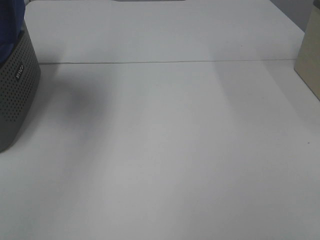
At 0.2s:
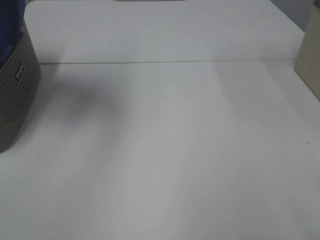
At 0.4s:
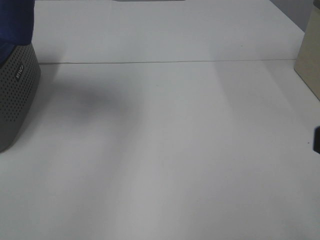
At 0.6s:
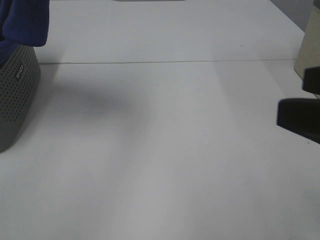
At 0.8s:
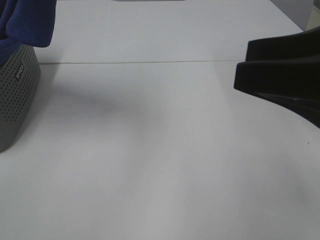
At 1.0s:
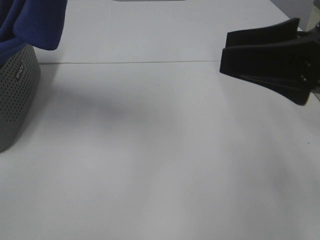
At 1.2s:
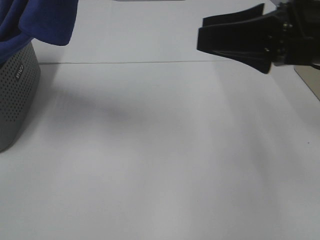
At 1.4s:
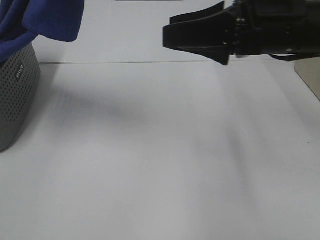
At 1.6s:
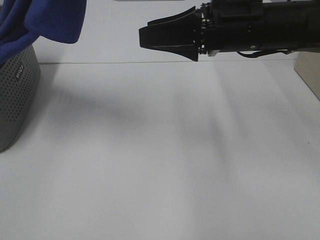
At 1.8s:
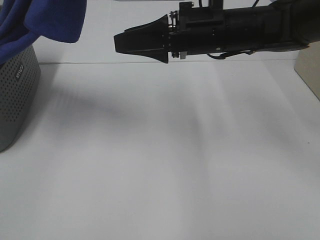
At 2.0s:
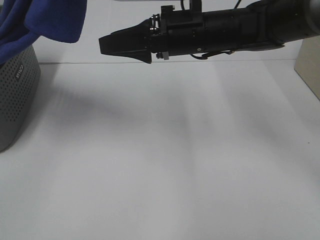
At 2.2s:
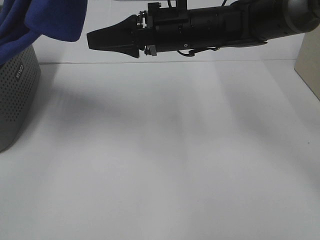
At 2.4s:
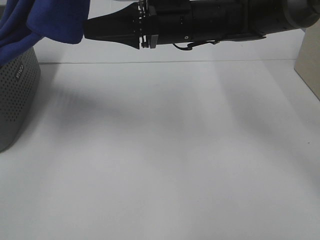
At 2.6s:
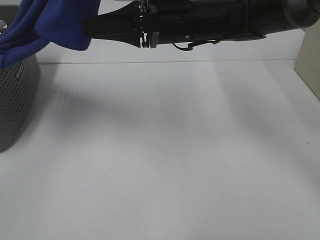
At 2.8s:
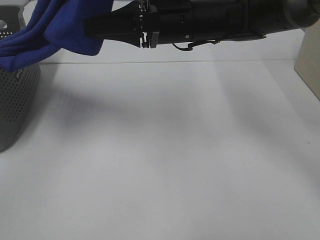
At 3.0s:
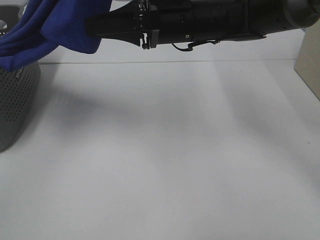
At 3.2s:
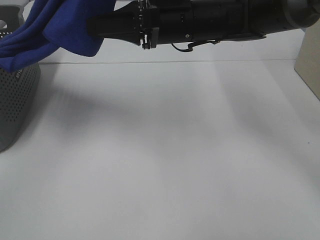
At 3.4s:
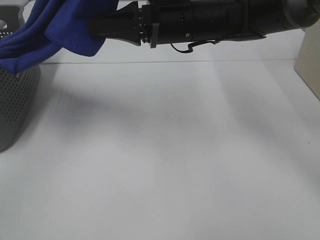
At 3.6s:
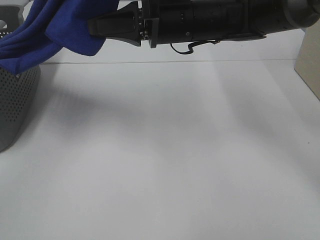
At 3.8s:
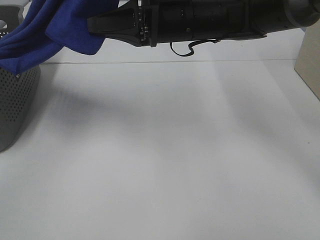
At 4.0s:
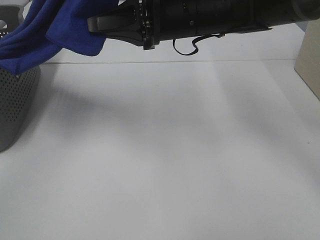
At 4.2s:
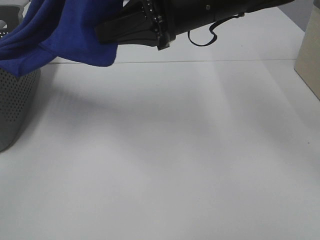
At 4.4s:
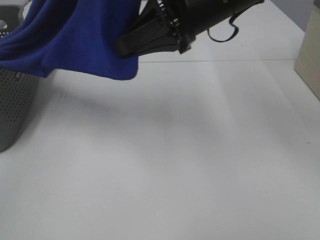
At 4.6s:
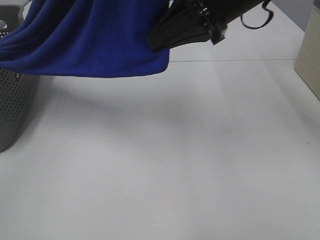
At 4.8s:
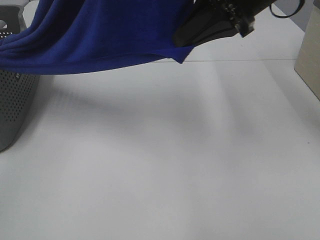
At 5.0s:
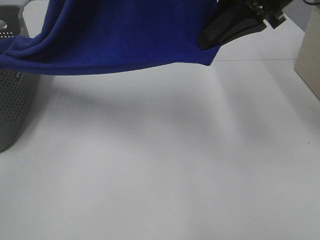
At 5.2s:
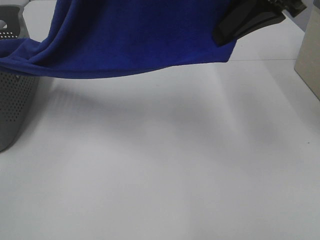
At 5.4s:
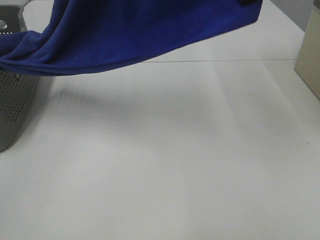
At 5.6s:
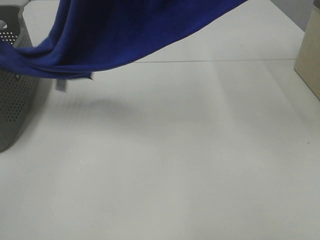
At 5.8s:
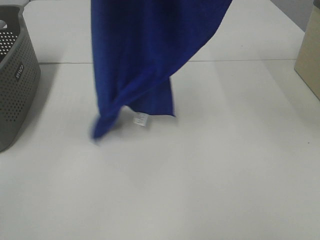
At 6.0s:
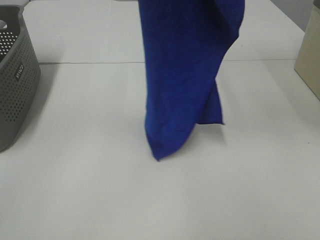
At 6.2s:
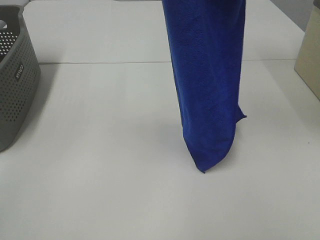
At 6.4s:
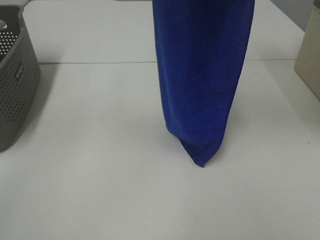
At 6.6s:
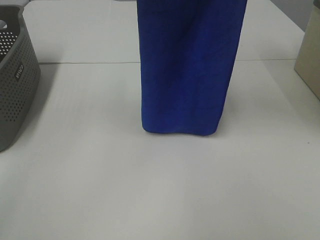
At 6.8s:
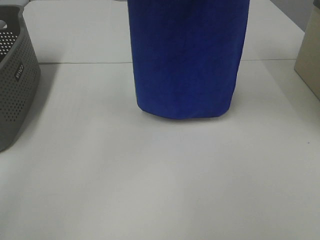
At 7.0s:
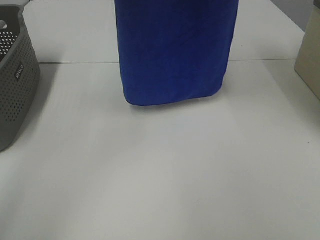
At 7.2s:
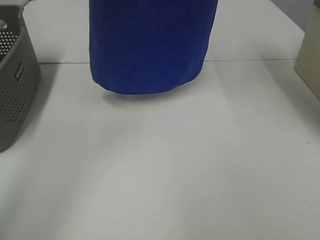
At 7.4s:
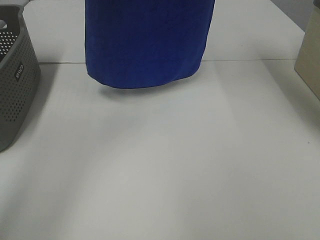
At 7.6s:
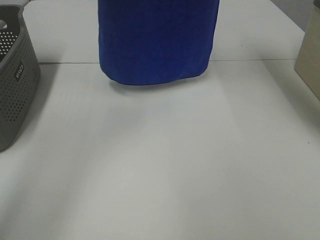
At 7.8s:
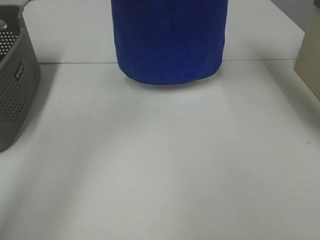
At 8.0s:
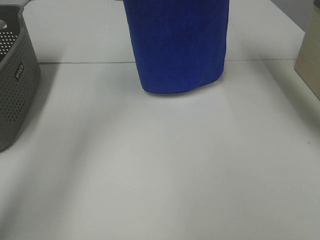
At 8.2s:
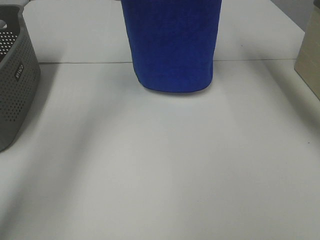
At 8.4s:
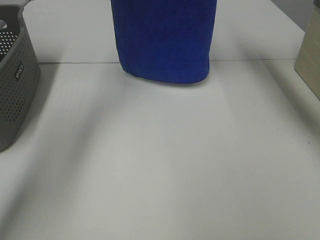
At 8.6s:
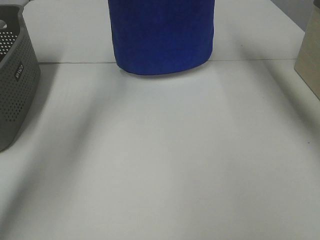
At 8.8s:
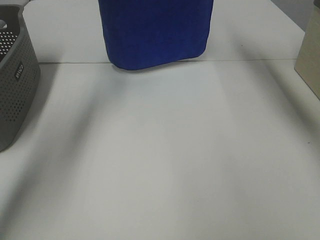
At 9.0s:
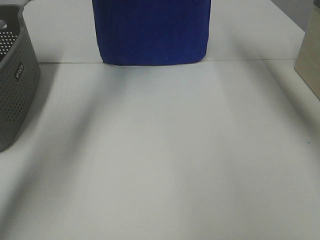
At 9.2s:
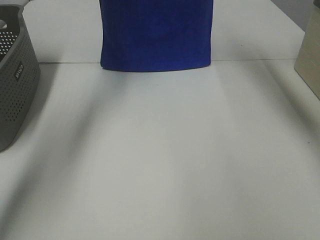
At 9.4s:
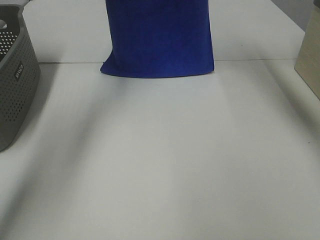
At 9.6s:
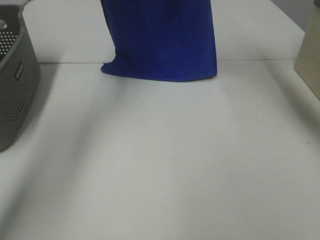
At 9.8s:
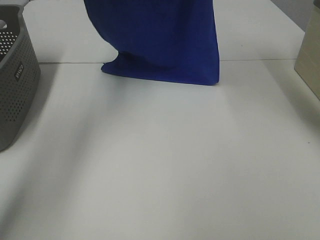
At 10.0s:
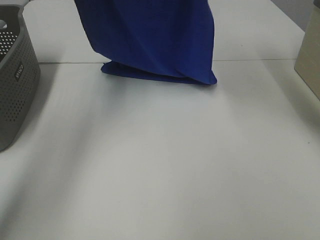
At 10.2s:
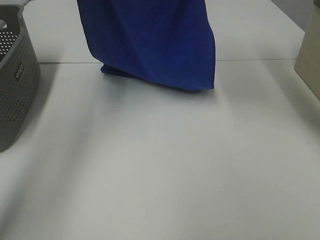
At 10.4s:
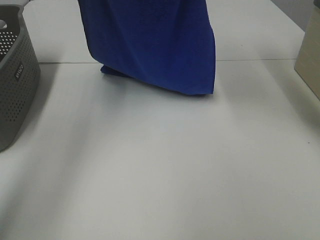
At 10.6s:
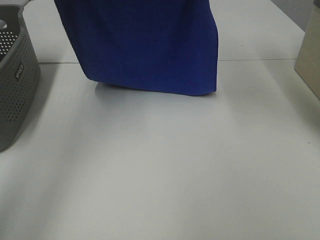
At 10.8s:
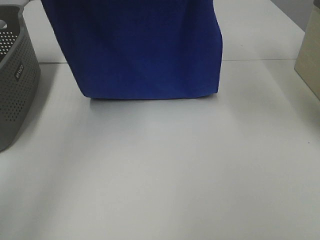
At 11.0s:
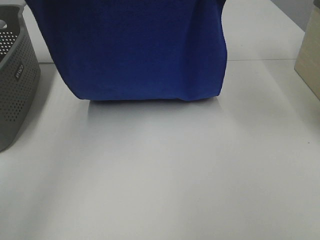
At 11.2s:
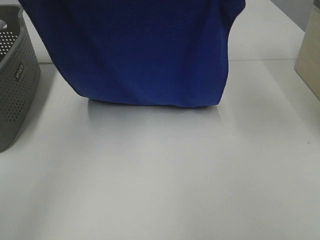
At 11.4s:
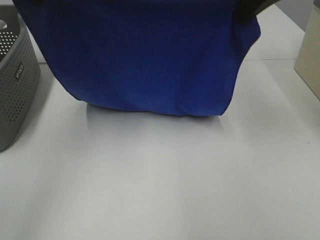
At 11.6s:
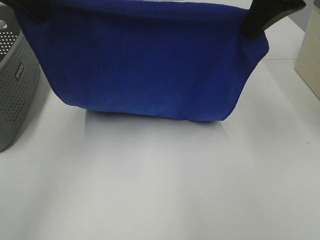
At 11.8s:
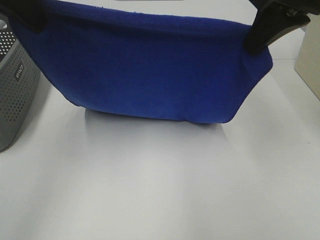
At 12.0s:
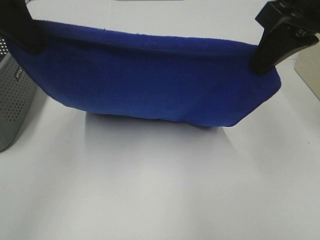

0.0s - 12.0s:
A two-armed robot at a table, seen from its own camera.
Task of the whole recording: Remove the towel and place it.
Step, 0.4s - 4.0s: Right hand: grab a corner of the blue towel and straighten it.
Step, 4.2s - 11.8s: Left hand: spread the blue towel flat on the table.
Step, 4.2s - 11.8s: Right hand: spread the blue towel flat on the table.
0.0s - 1.6s: The right gripper travels forward and to the left by approximately 35 cm; the left gripper shifts approximately 15 cm to the right and backward.
1.6s - 3.0s: The right gripper is displaced to the left and forward by roughly 10 cm.
3.0s - 4.4s: The right gripper travels upward by approximately 5 cm, and closes its fingers.
4.4s - 6.0s: The right gripper shifts roughly 20 cm upward and to the right.
6.0s - 7.6s: Both grippers travel together forward, some 15 cm.
7.6s - 9.0s: The left gripper goes roughly 10 cm forward and downward, while the right gripper travels forward by roughly 10 cm.
9.0s - 10.4s: Both grippers move backward, roughly 10 cm.
10.4s - 12.0s: Both grippers travel together backward and downward, approximately 15 cm.

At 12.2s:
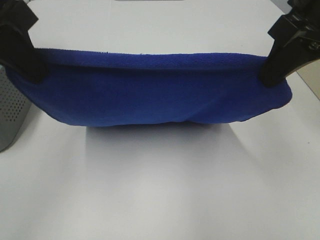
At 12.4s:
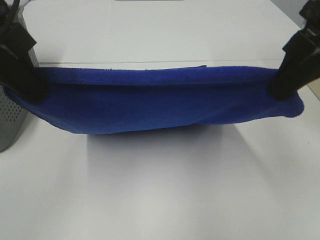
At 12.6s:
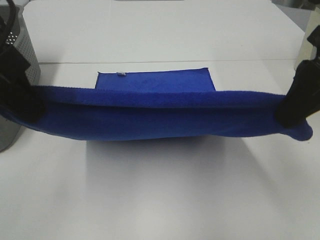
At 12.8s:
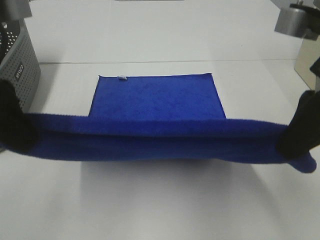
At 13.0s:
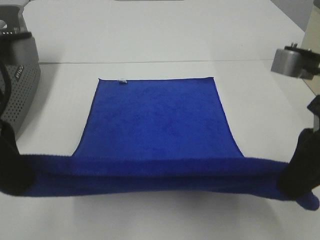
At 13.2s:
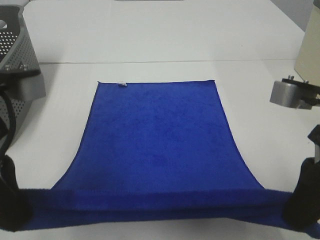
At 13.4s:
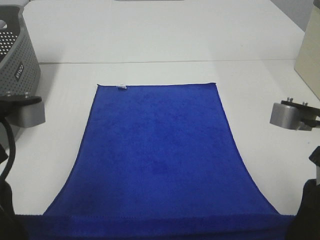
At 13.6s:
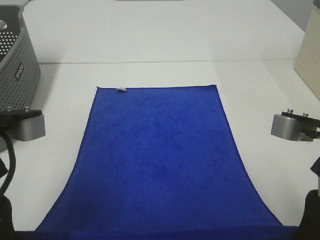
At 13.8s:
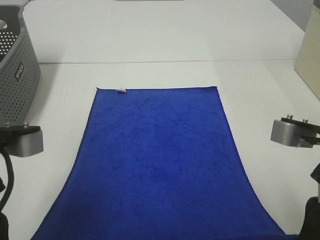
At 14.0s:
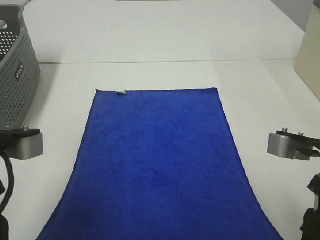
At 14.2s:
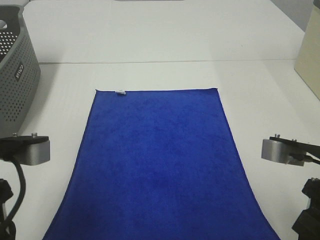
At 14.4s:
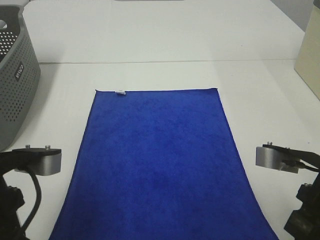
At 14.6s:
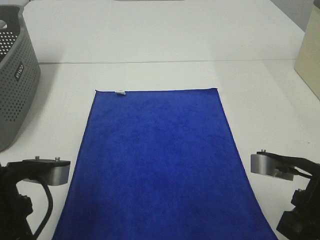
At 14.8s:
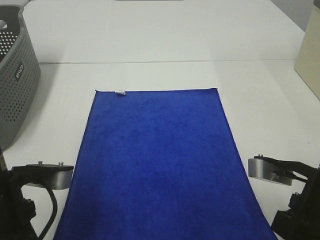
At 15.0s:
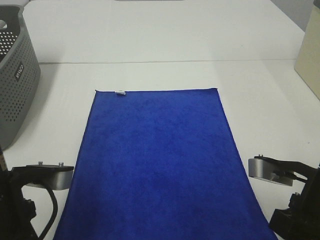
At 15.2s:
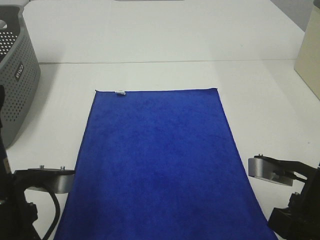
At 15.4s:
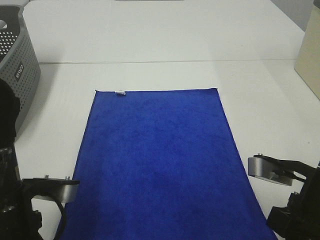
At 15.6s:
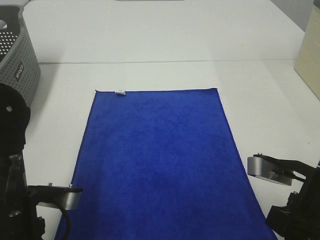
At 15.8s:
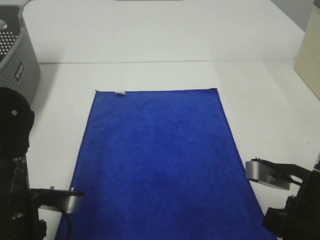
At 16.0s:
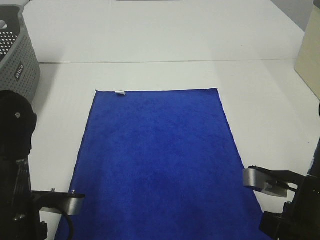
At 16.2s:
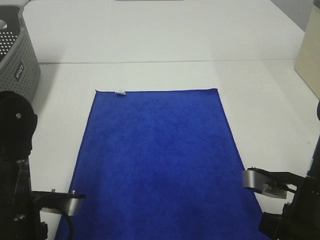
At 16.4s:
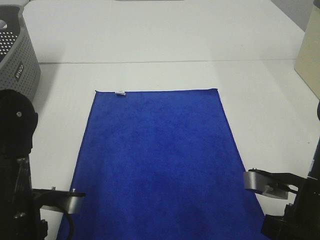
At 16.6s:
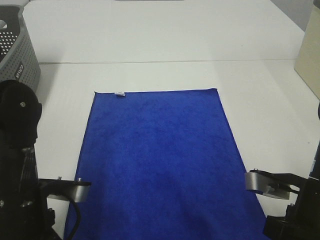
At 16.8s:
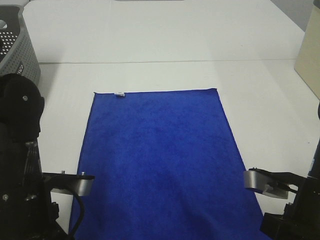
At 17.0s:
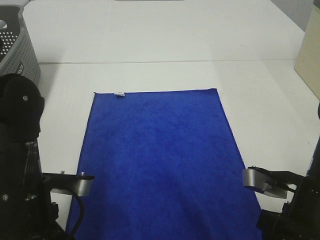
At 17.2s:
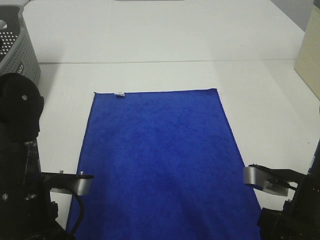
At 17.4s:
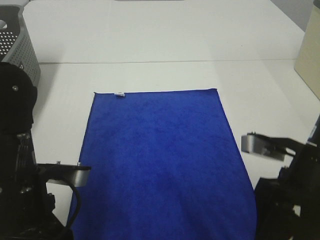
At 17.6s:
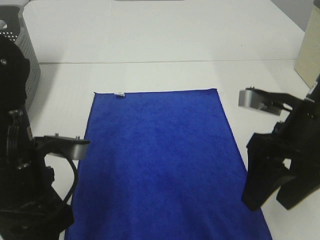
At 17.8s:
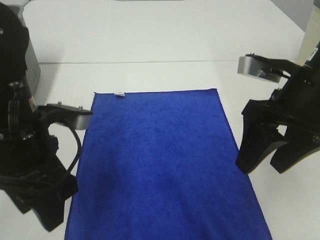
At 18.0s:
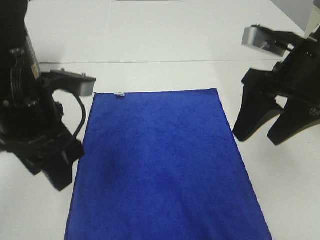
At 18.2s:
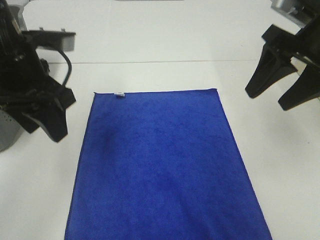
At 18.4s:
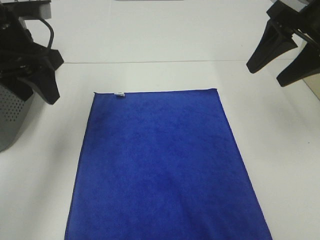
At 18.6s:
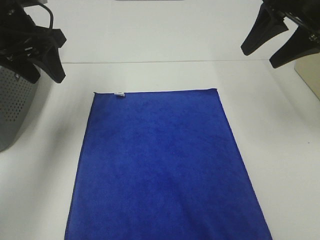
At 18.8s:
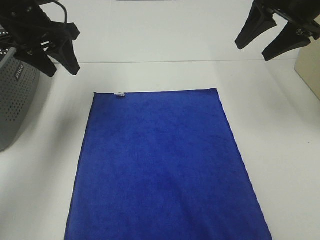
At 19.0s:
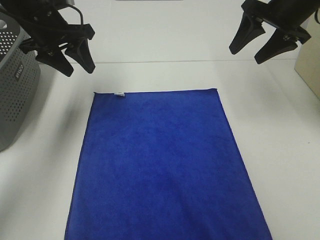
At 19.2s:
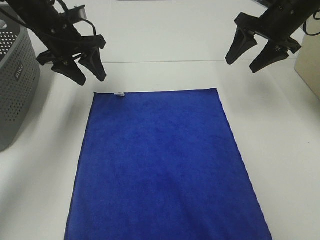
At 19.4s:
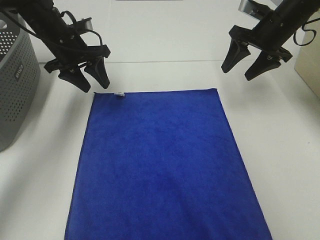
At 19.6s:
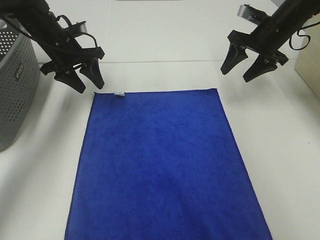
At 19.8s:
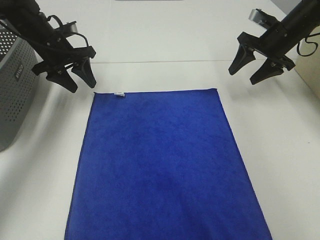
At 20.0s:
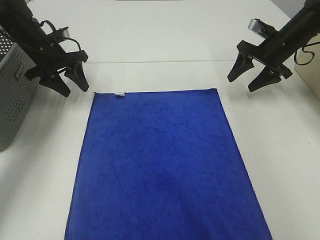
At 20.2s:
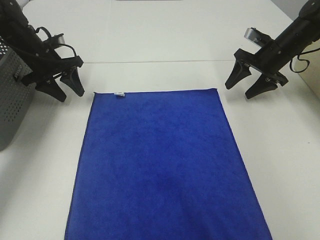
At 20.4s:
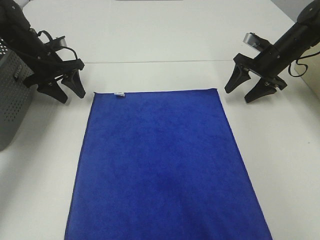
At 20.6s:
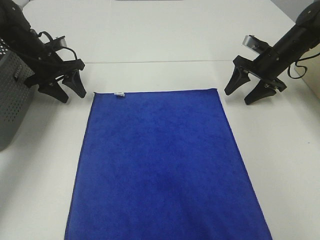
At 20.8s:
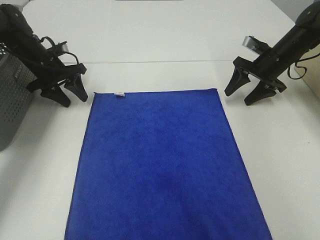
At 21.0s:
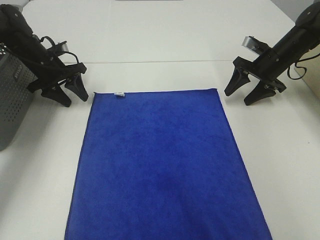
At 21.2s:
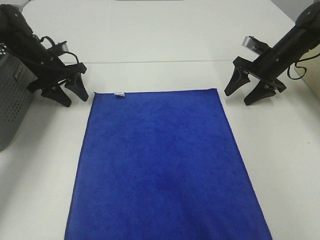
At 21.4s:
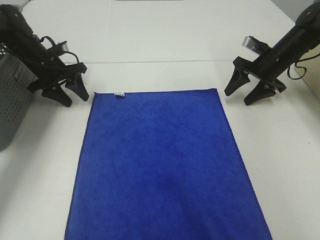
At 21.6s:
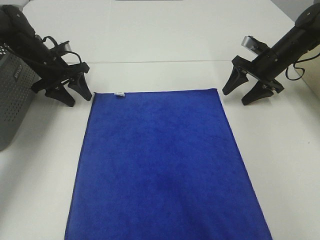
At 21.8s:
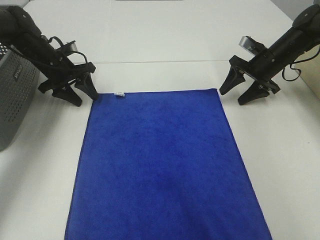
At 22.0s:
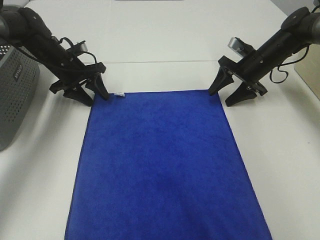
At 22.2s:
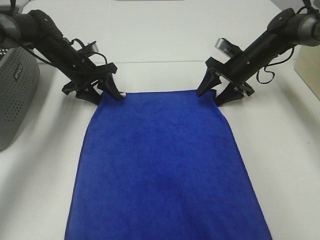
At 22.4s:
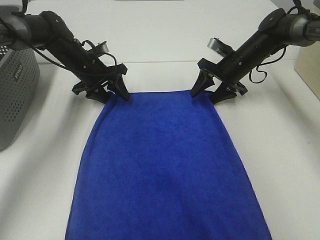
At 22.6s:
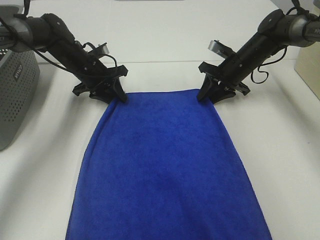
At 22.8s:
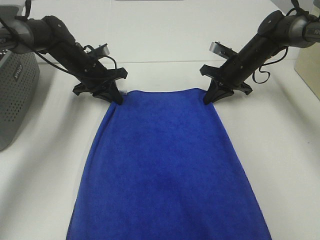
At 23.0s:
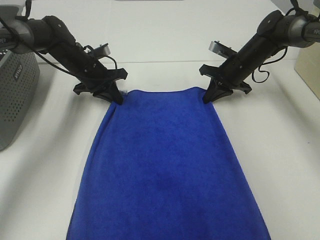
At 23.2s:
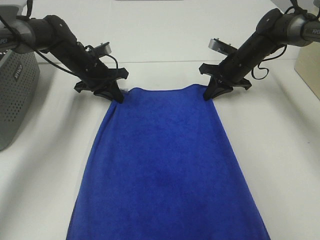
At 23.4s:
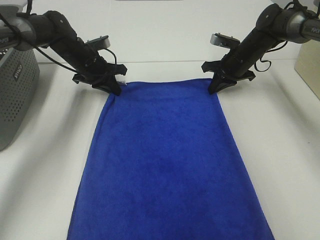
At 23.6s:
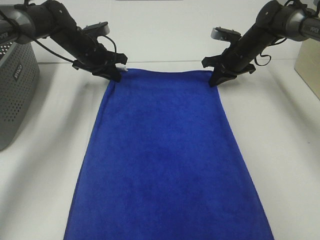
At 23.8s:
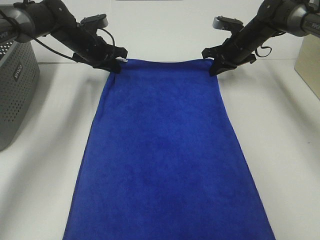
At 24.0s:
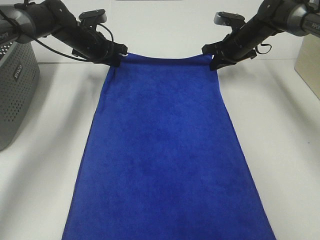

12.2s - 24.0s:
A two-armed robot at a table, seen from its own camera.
Task of the whole recording: Remove the towel and place it.
Step, 12.2s - 19.2s: Right hand:adjust the blue towel.
12.2s - 13.6s: The right gripper travels downward and backward by about 15 cm. The left gripper is displaced backward and downward by approximately 15 cm.
13.6s - 15.2s: Both grippers move downward, approximately 5 cm.
15.2s - 16.6s: The left gripper opens.
16.6s - 18.2s: The two grippers go roughly 20 cm upward and forward. The right gripper opens its fingers.
18.2s - 19.6s: The grippers both shift forward and downward by approximately 25 cm.
19.6s - 21.0s: The left gripper travels downward and to the left by about 10 cm. Meanwhile the right gripper heads downward, covering about 10 cm.
21.0s - 22.6s: The right gripper shifts some 10 cm to the left, and closes up, while the left gripper travels to the right by approximately 10 cm.
22.6s - 24.0s: Both grippers travel together forward, some 5 cm. The right gripper closes.
